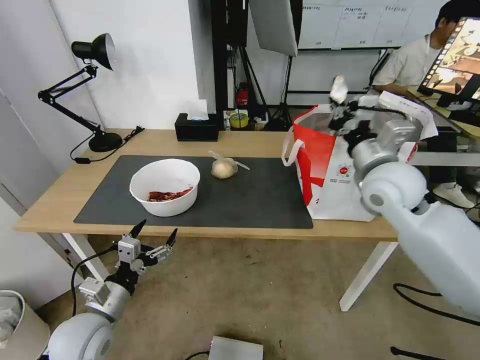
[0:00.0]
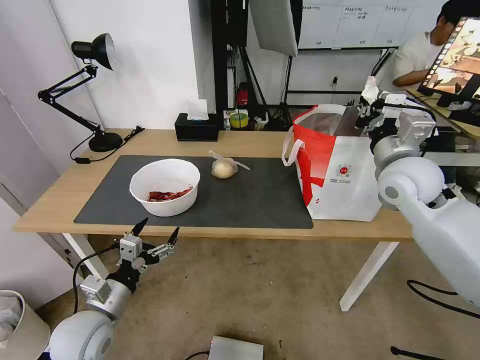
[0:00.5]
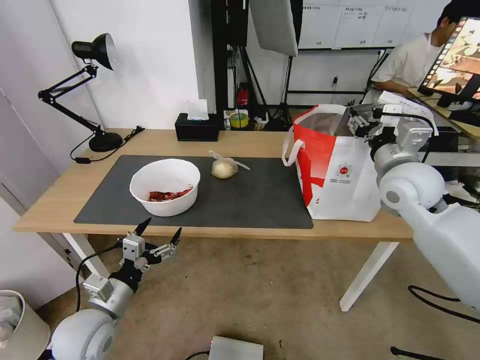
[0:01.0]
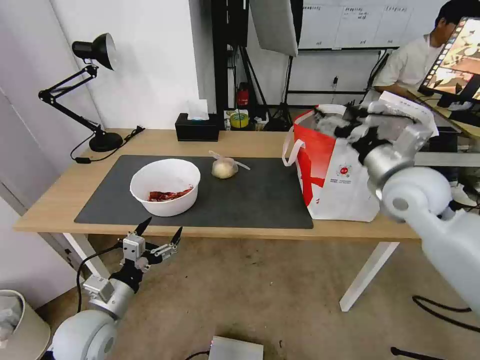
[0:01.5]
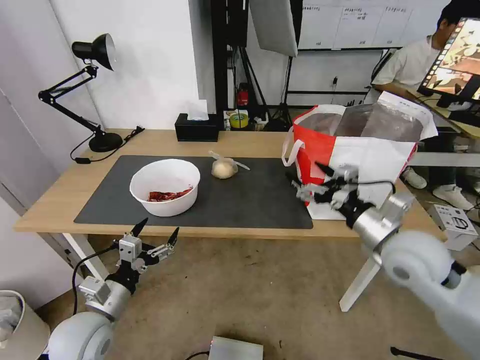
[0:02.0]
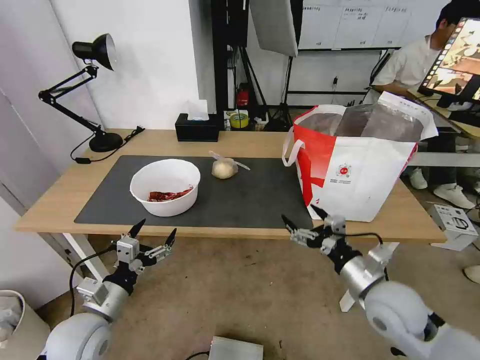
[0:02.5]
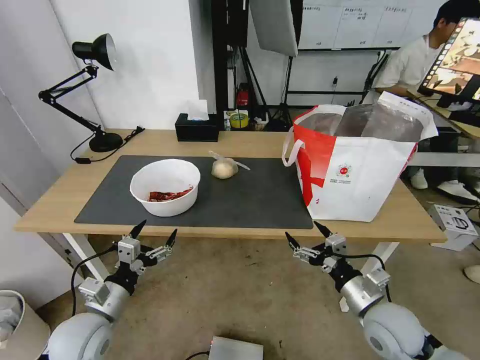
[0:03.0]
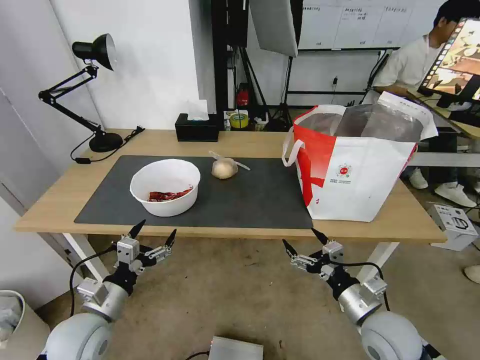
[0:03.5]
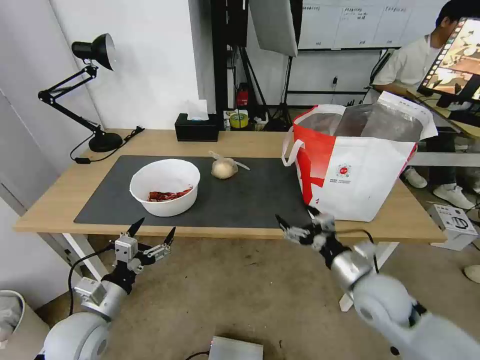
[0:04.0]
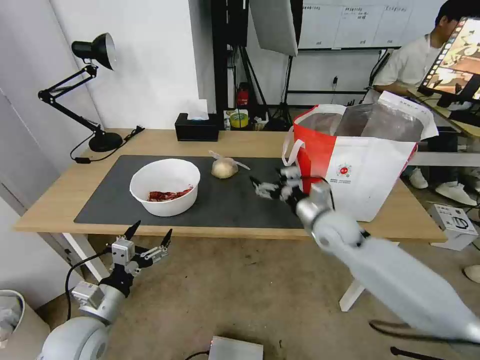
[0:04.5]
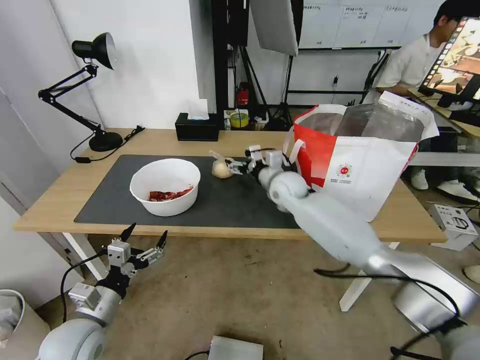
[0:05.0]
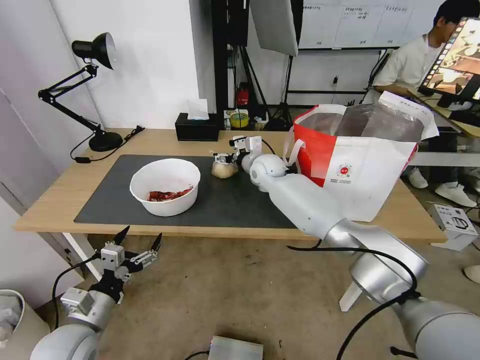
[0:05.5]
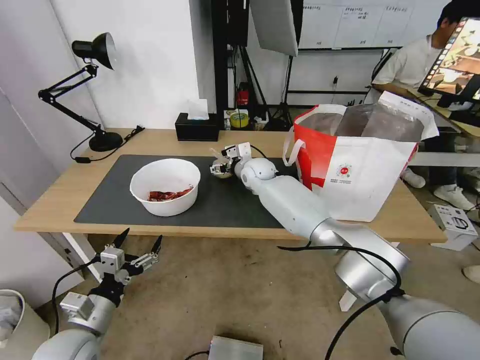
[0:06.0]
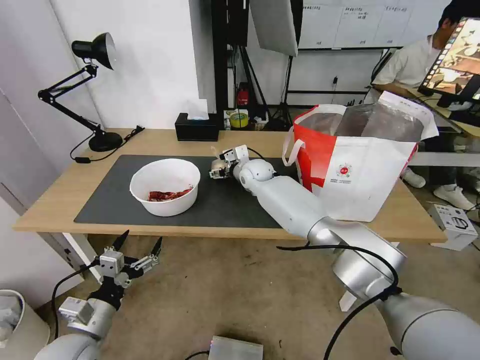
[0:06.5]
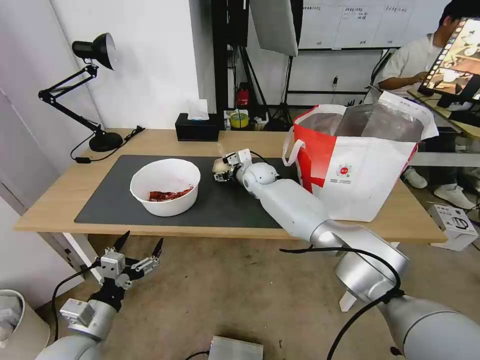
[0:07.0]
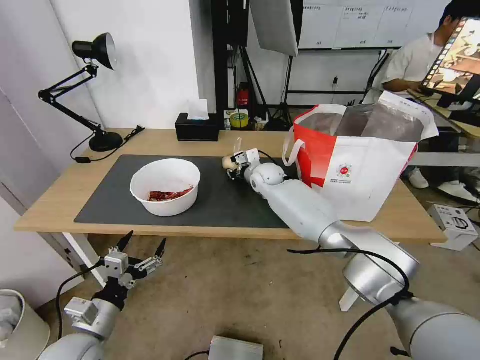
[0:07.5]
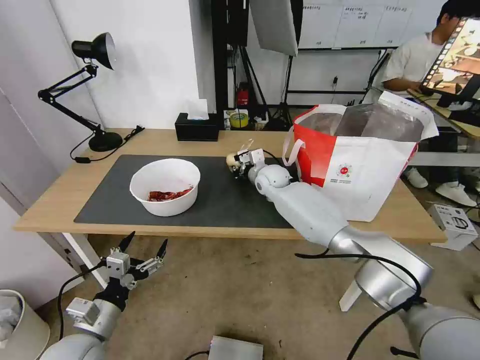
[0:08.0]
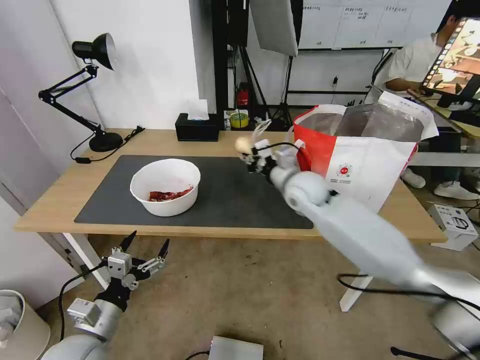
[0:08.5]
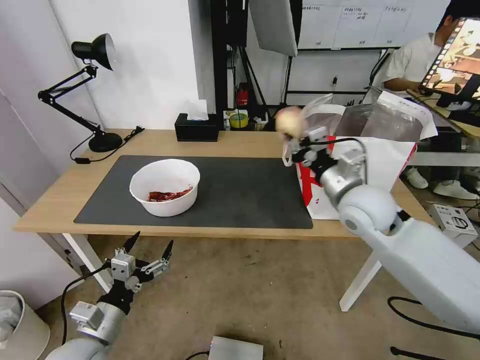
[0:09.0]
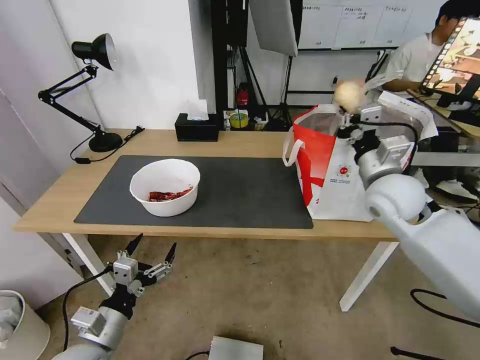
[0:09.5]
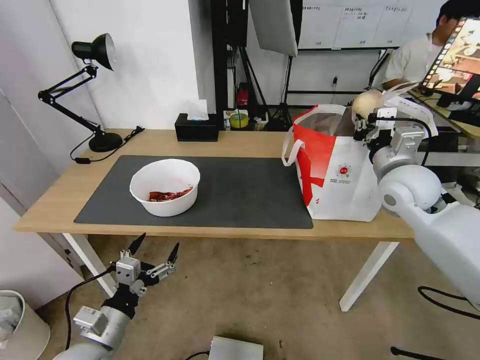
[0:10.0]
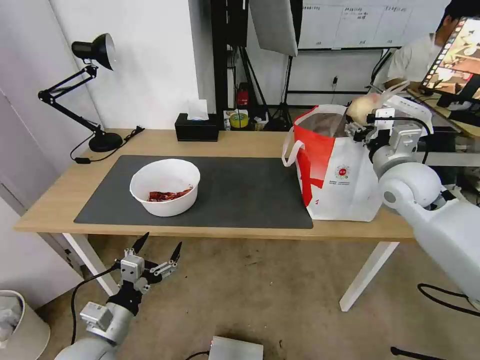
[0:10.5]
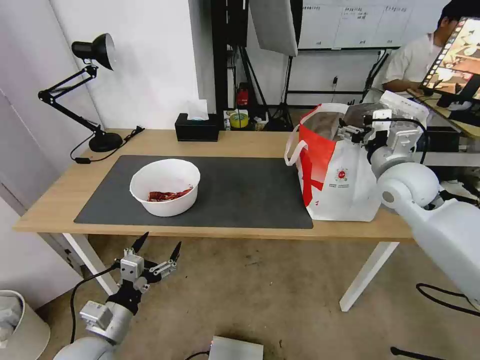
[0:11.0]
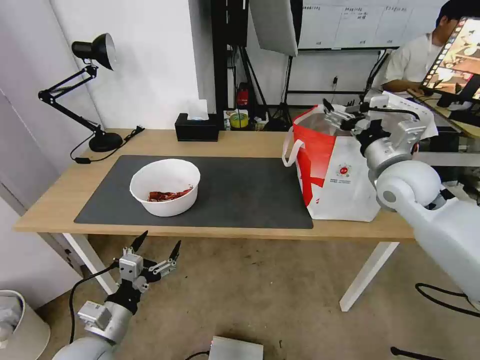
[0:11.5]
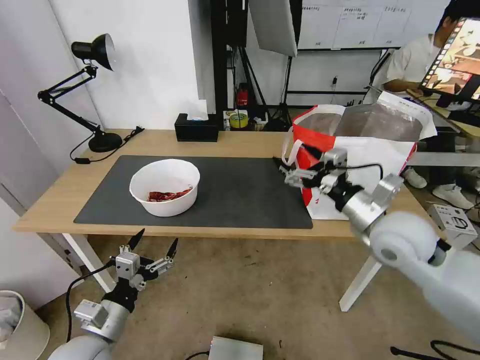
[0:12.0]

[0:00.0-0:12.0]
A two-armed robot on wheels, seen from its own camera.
Task of the whole recording: Pick up the trash from the table and place it into the takeout bag.
0:00.0 to 0:02.0: The right gripper is displaced backward and downward by roughly 15 cm, and opens up.
0:02.0 to 0:04.0: The right gripper goes about 10 cm downward.
0:04.0 to 0:06.0: The right gripper is displaced forward and to the left by roughly 40 cm.
0:06.0 to 0:08.0: The right gripper closes up.
0:08.0 to 0:10.0: The right gripper heads to the right, backward and upward, covering some 30 cm.
0:10.0 to 0:12.0: The right gripper heads backward, covering some 10 cm, and opens its fingers.

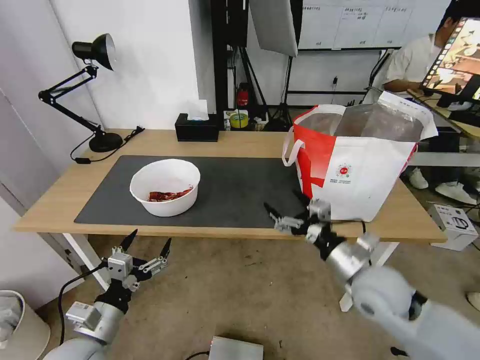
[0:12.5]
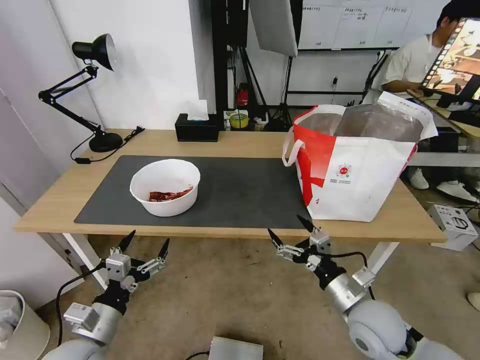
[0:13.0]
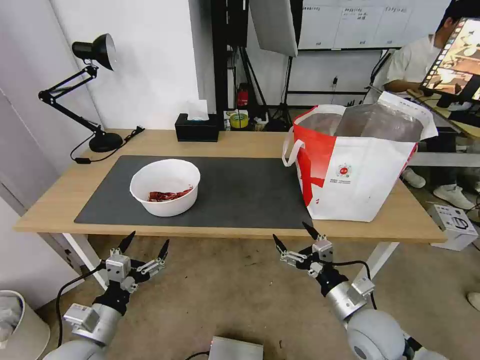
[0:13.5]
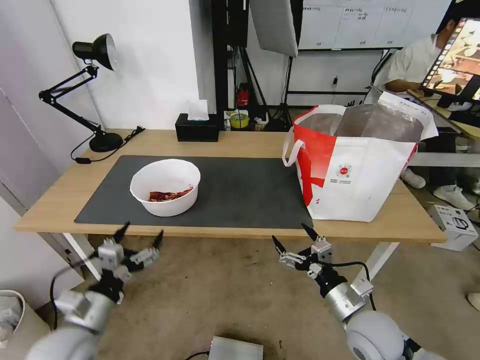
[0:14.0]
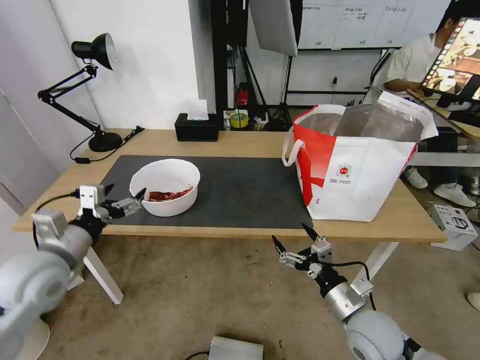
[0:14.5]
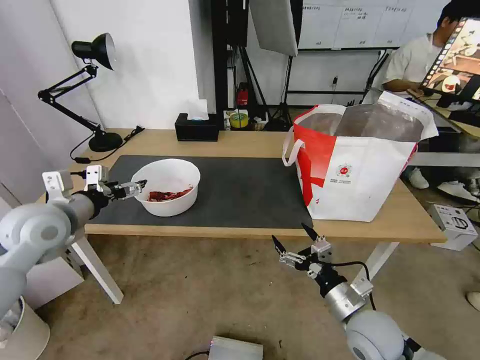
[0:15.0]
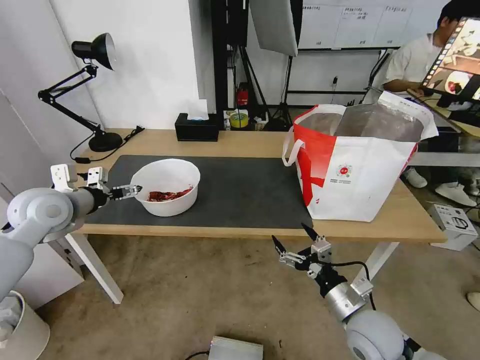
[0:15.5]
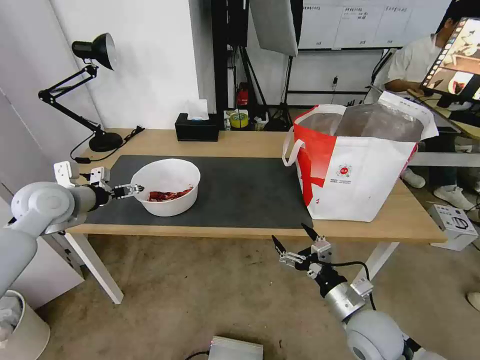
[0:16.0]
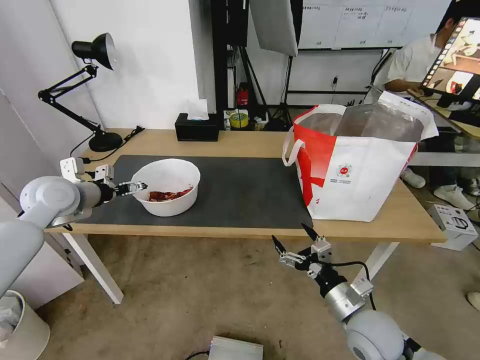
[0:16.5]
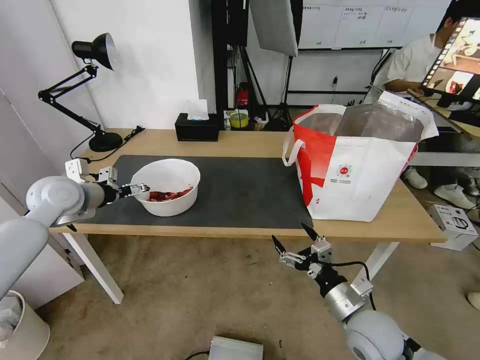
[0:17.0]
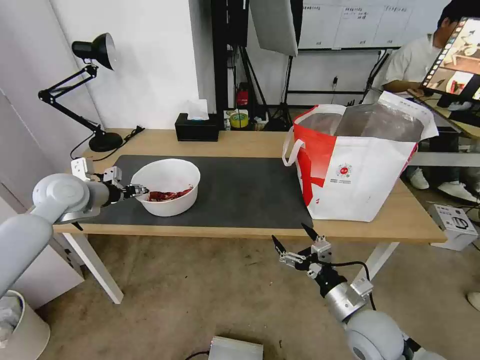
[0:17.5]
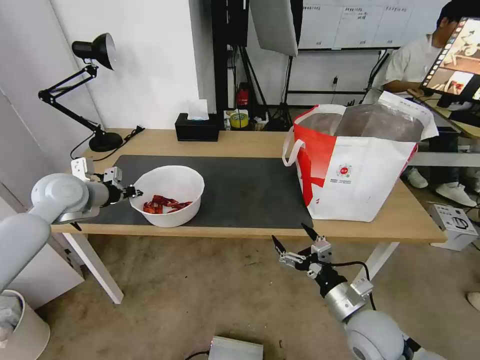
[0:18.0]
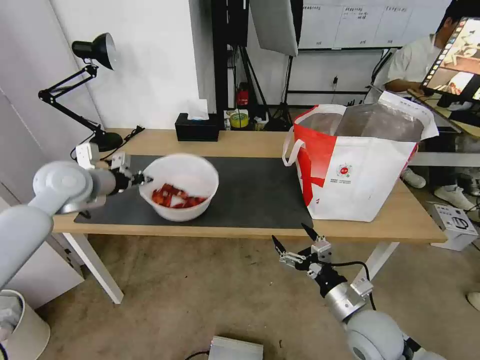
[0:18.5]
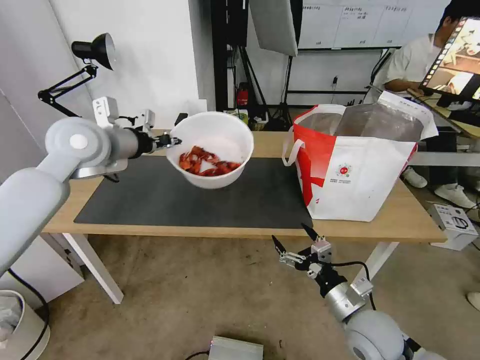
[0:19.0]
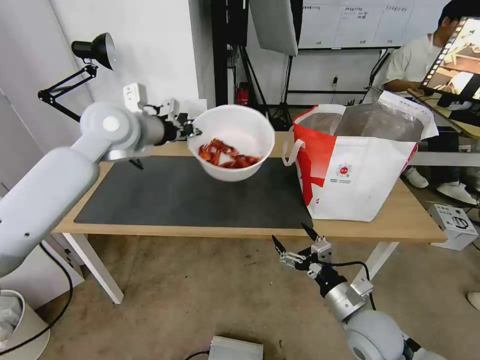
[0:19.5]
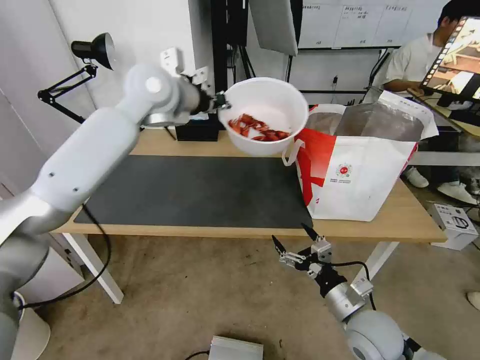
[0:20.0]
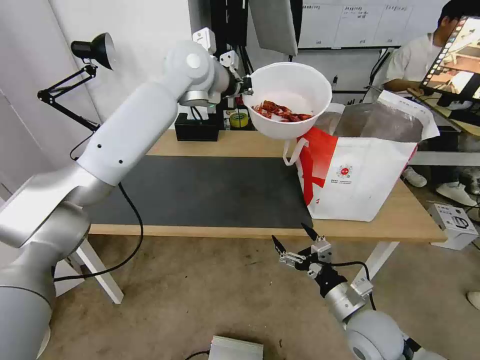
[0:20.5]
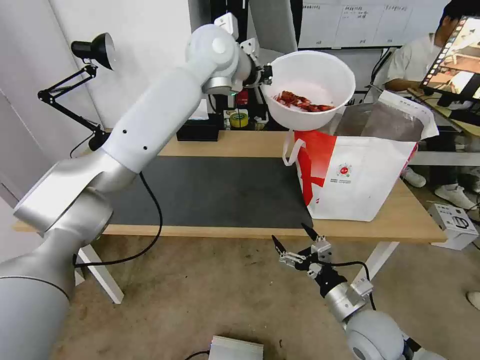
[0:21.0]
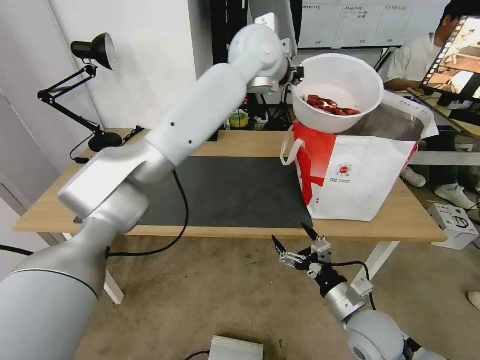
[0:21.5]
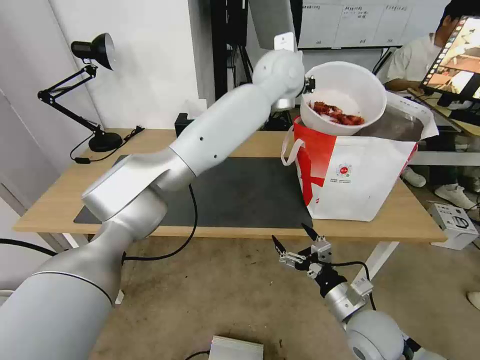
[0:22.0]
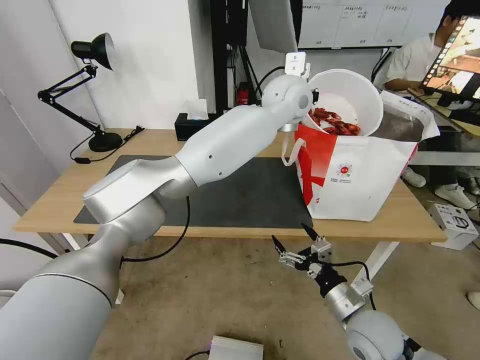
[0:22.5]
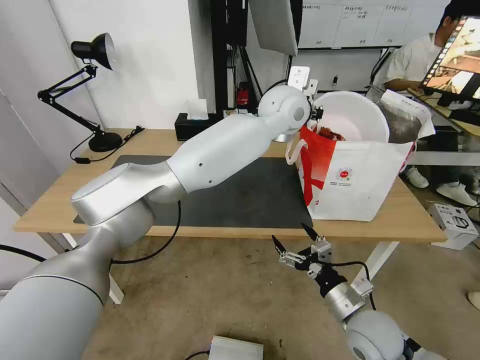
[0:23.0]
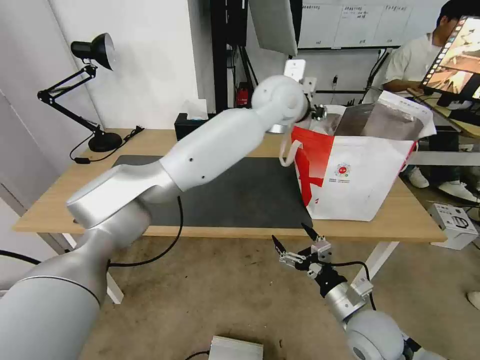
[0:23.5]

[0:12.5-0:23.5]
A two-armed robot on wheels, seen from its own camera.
Task of the whole recording: Pick up the trash from the table and place it into the takeout bag.
0:12.5 to 0:14.5: The right gripper is displaced downward and backward by approximately 10 cm. The left gripper is displaced upward, forward and to the left by some 15 cm.
0:14.5 to 0:16.0: The left gripper shifts about 15 cm forward.
0:16.0 to 0:18.0: The left gripper closes.
0:18.0 to 0:20.0: The left gripper shifts some 30 cm to the right and upward.
0:20.0 to 0:21.5: The left gripper travels to the right by some 20 cm.
0:21.5 to 0:23.5: The left gripper is displaced downward by roughly 5 cm, and opens.

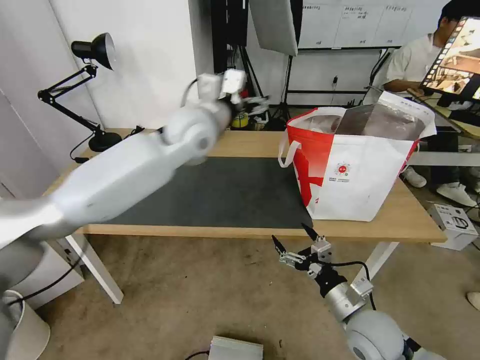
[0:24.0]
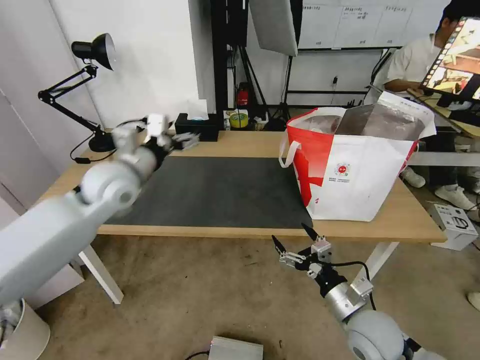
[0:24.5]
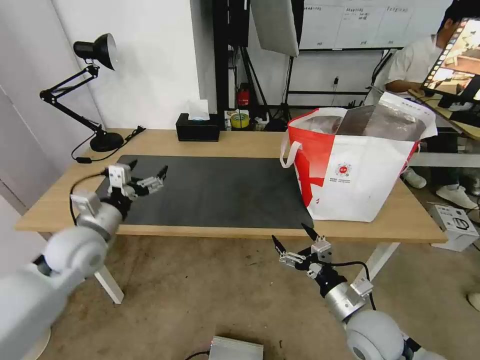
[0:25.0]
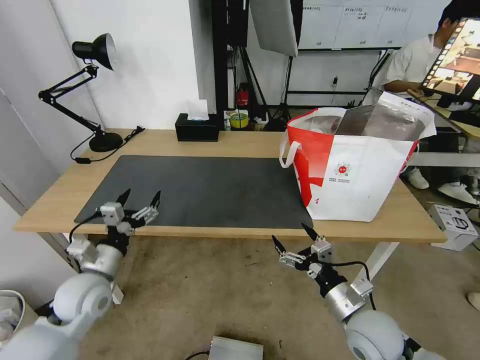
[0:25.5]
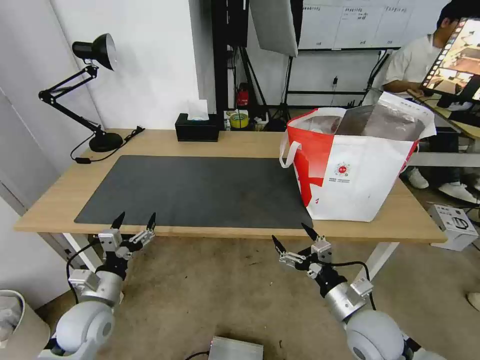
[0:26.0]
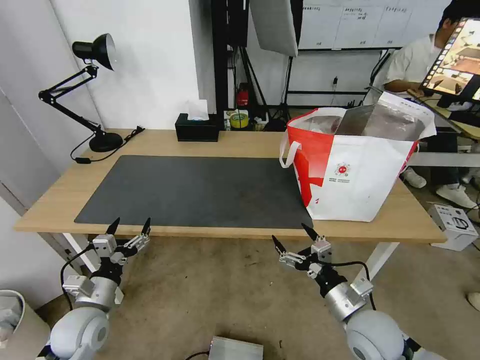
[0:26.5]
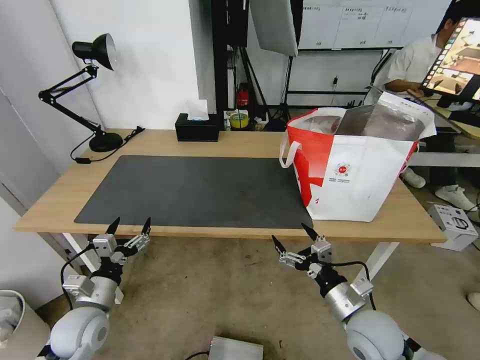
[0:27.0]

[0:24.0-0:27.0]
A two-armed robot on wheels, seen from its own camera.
Task of the whole recording: Pick up the trash from the table and place it into the takeout bag.
0:24.0 to 0:25.5: The left gripper shifts about 40 cm downward, to the left and backward.
0:25.5 to 0:27.0: The left gripper travels downward and backward by some 10 cm.
